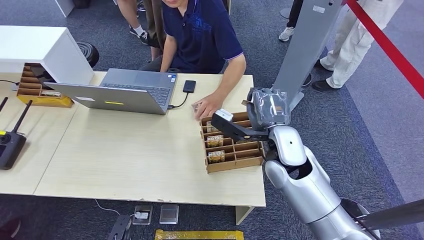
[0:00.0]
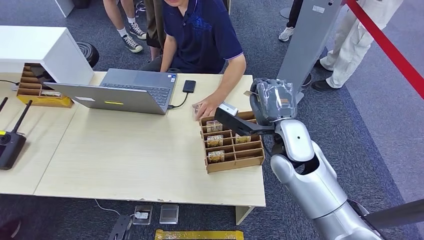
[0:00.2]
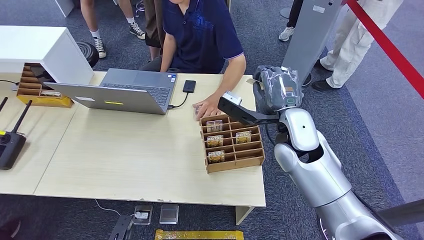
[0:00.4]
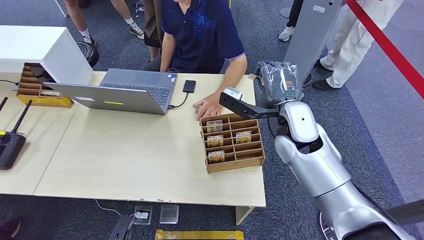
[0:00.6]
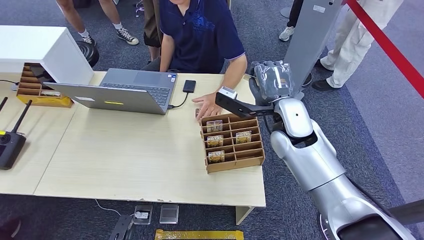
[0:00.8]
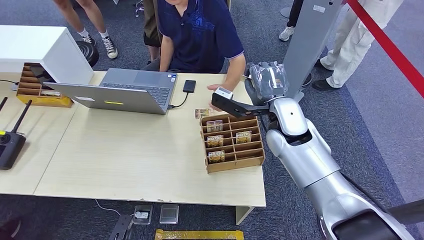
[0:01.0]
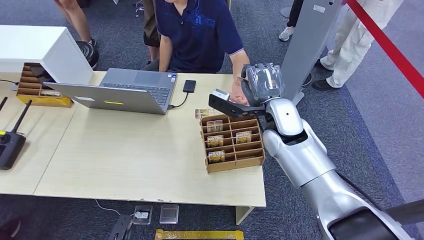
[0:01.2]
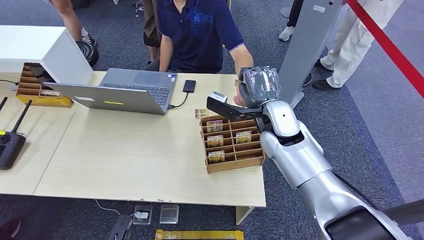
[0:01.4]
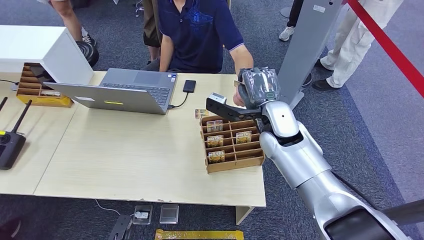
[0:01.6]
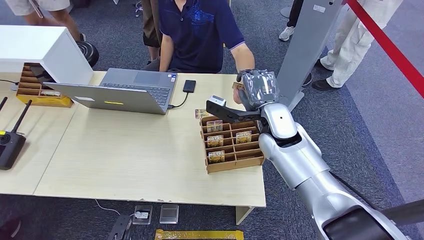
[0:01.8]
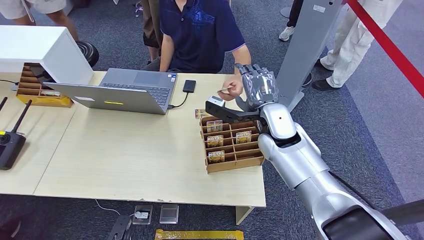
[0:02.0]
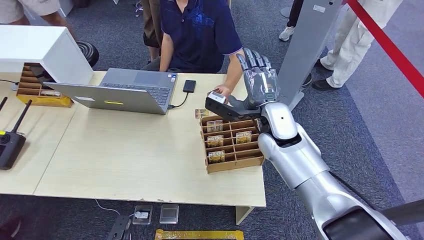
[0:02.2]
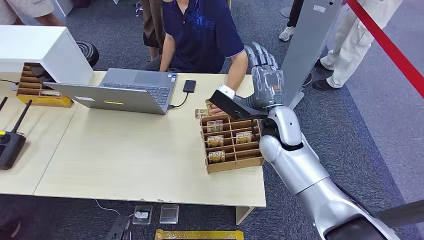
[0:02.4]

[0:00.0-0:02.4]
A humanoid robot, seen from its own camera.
Step, 0:00.2 to 0:02.2: Hand the key card to the target.
0:00.0 to 0:01.2: The right hand is displaced forward by some 5 cm.
0:01.2 to 0:02.4: The hands move only a little.
